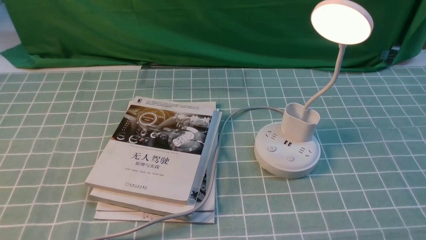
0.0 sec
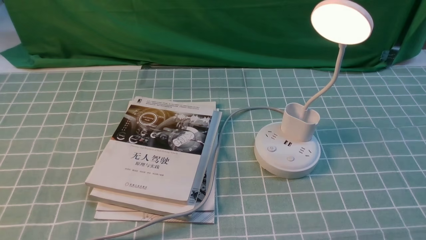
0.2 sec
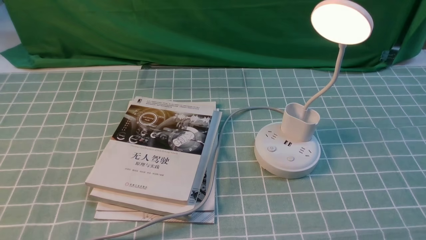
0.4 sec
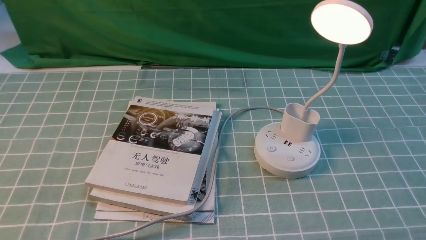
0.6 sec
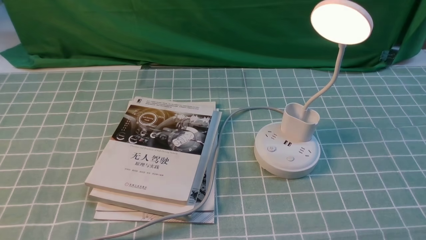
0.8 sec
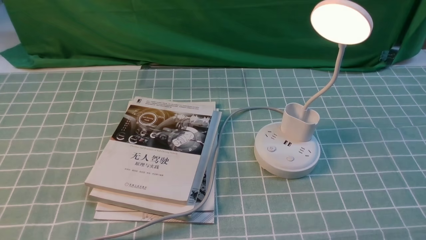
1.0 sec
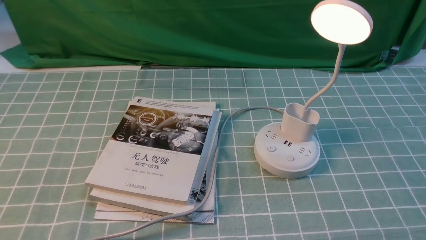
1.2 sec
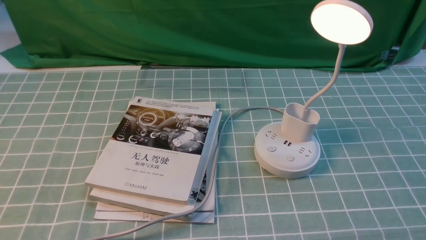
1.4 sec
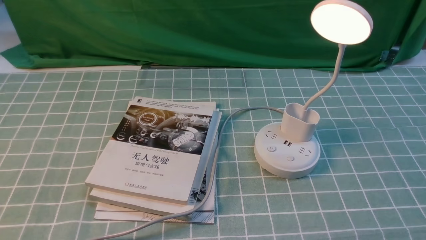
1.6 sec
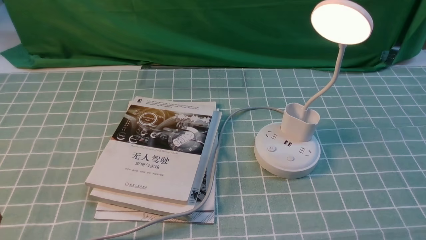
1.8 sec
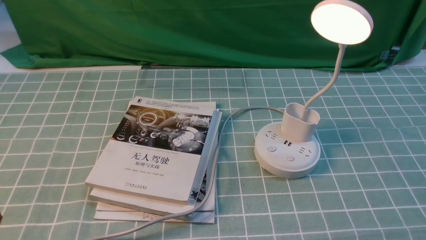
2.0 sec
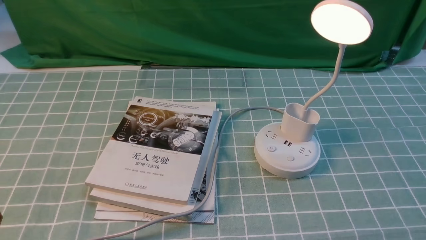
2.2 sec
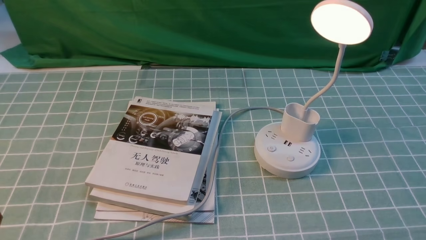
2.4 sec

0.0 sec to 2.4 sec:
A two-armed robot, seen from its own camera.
0.0 sec to 2.4 sec: Both grippers stay about where they are.

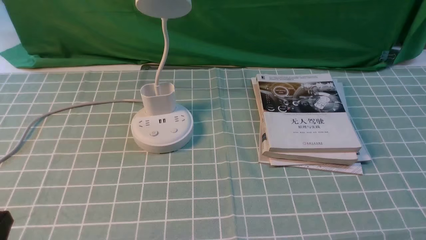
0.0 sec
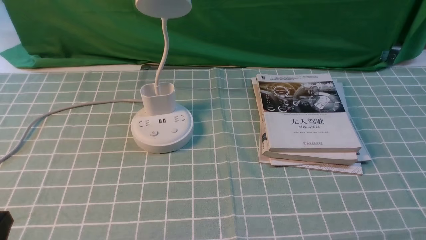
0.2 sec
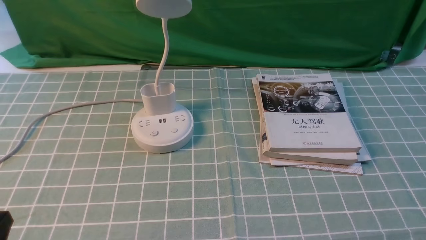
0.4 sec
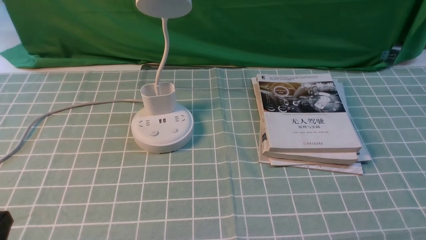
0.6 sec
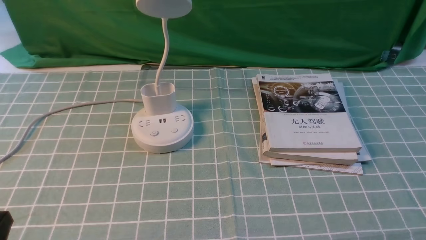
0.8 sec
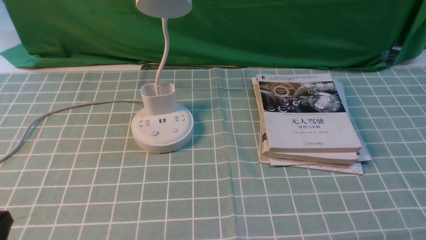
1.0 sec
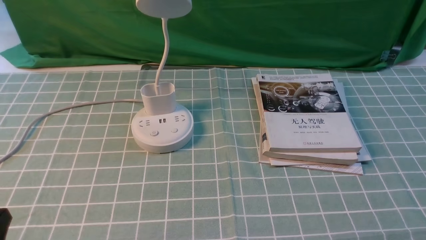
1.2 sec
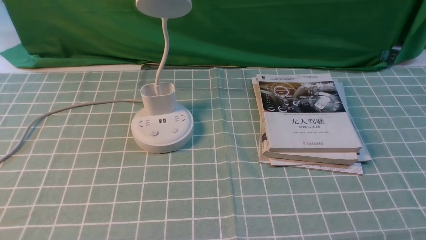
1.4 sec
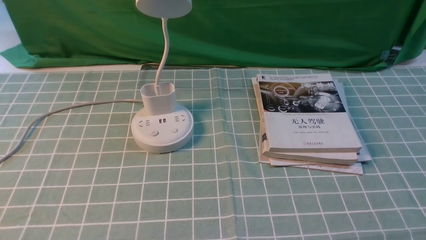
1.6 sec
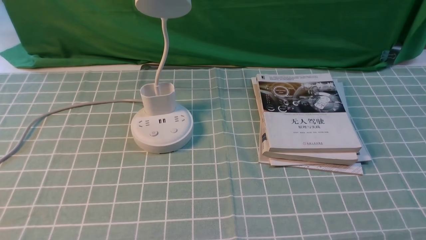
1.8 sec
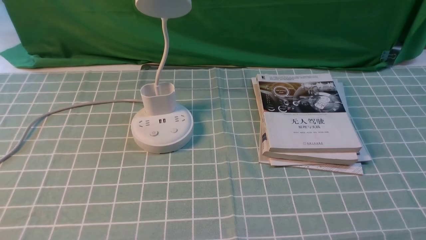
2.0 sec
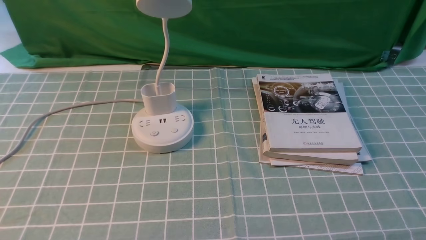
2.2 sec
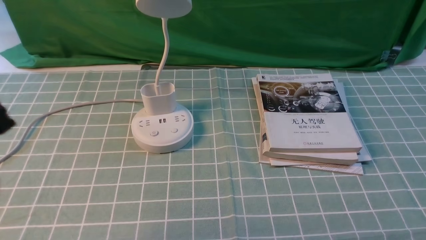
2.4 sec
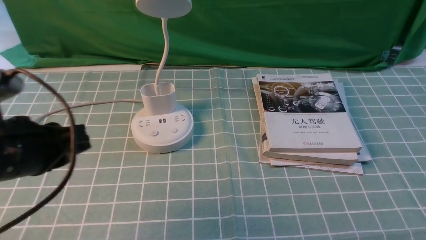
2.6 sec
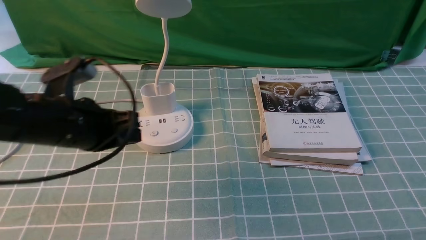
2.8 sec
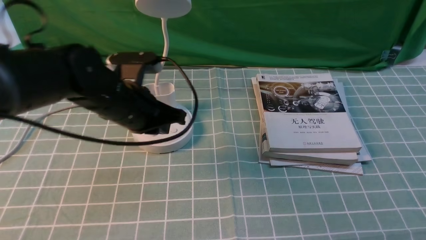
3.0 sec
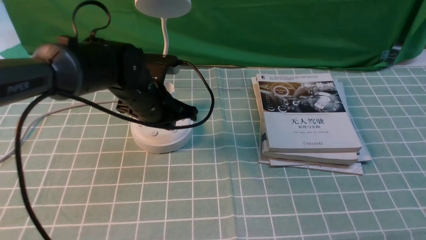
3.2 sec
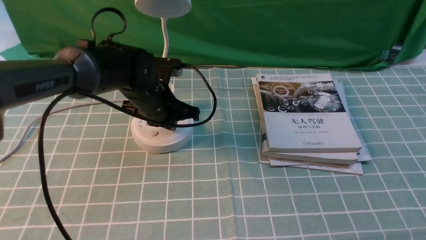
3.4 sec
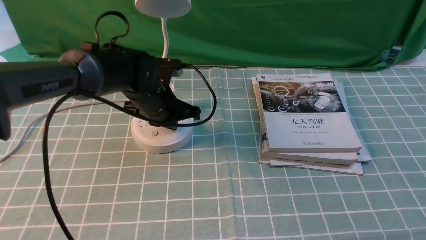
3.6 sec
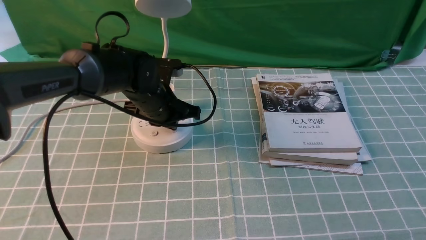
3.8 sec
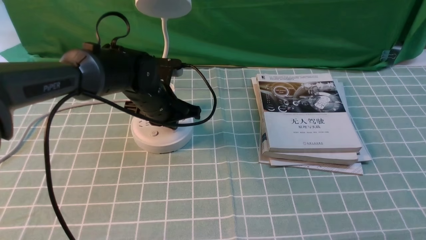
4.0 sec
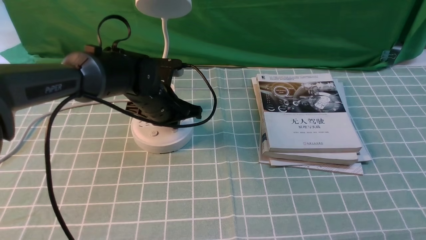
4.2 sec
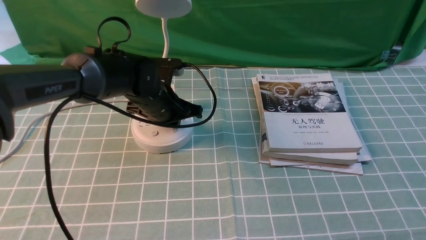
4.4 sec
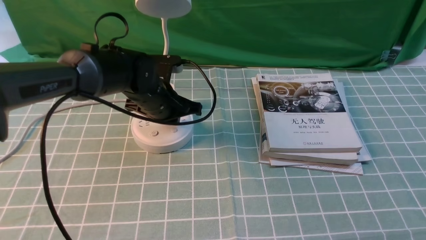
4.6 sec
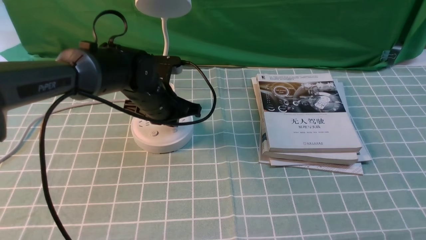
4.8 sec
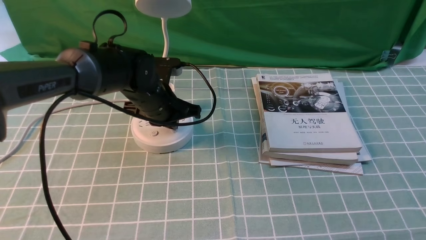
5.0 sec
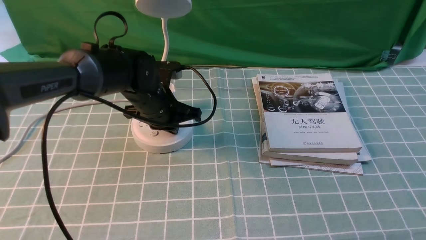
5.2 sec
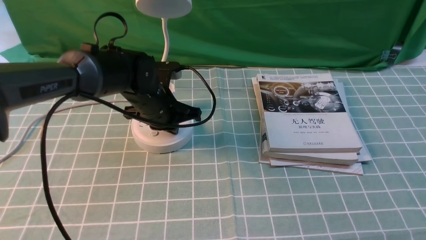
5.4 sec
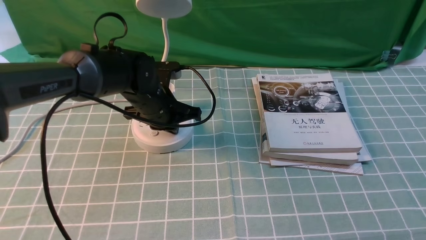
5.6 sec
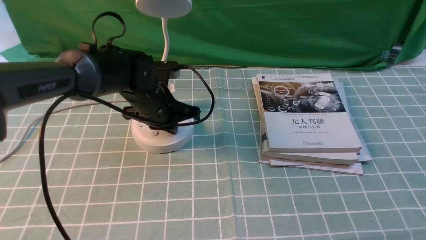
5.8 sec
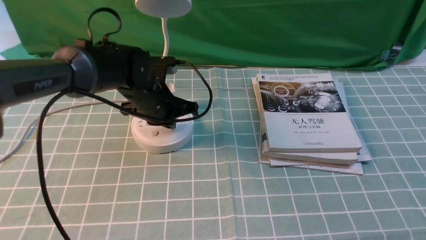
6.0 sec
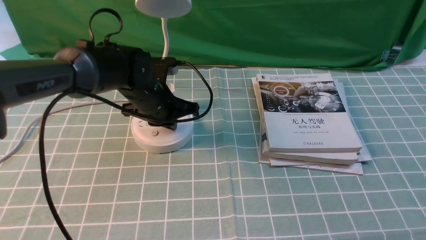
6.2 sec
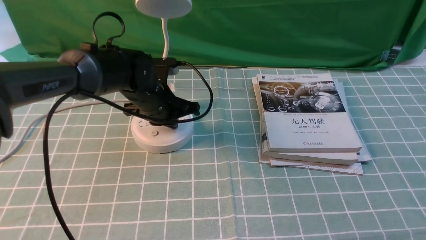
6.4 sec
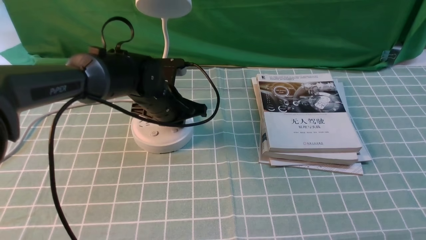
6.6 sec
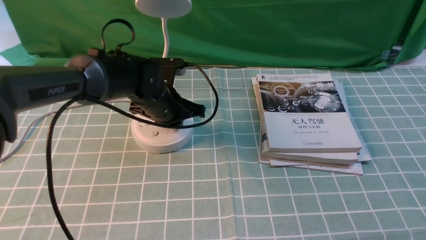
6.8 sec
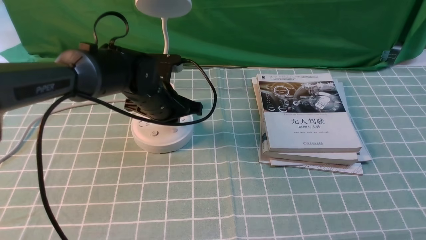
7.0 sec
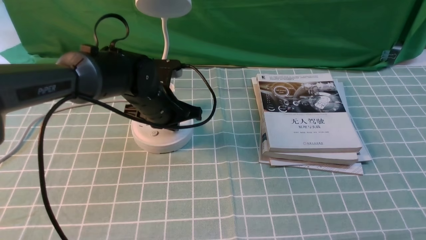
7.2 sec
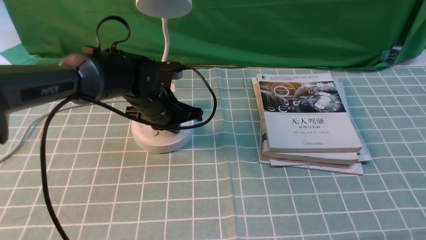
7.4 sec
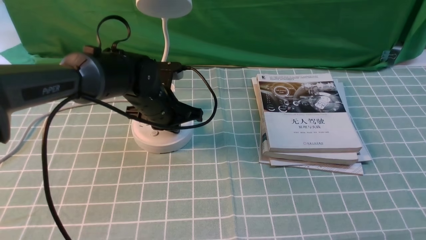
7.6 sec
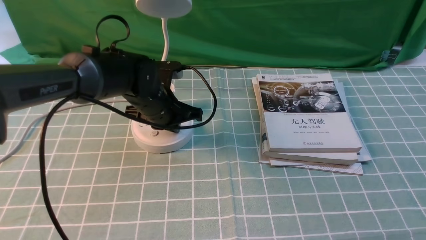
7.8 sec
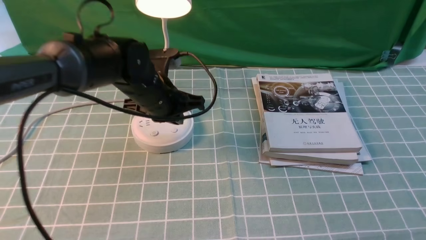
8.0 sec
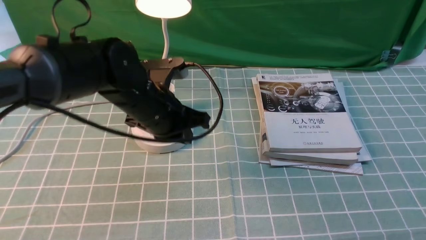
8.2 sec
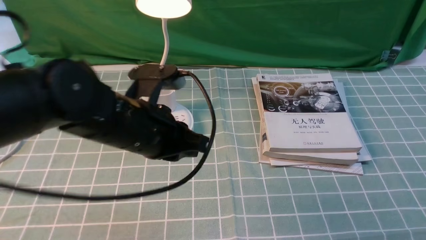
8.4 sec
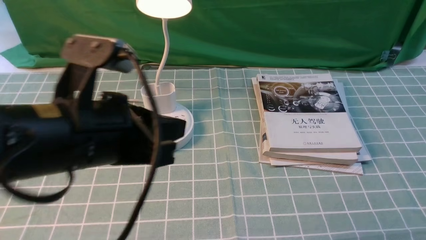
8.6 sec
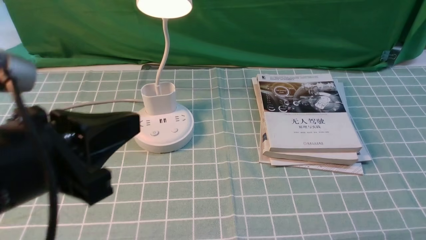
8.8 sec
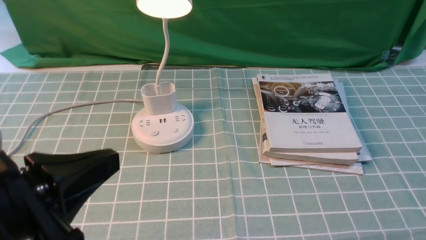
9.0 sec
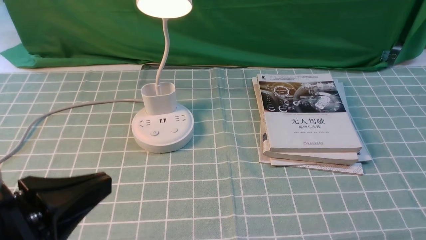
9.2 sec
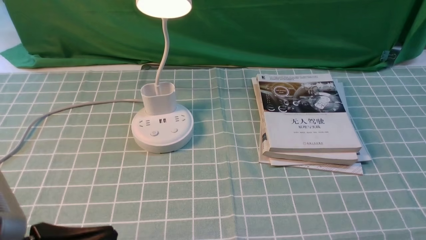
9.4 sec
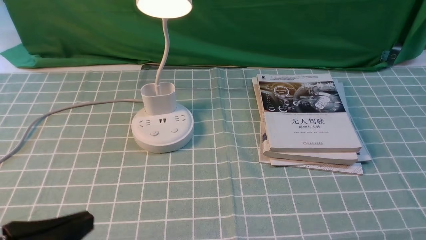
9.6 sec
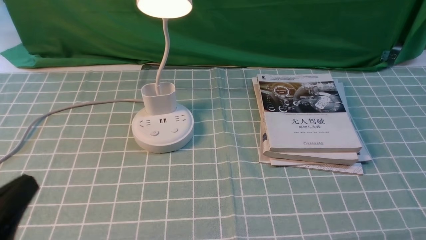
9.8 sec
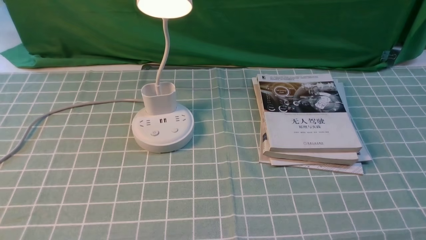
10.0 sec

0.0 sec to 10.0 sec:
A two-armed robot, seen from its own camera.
Step, 0.0 sec to 8.0 sec: use the left arm to press the button switch on the lamp holder.
1.4 sec to 2.8 sec: The left gripper is displaced forward by some 20 cm.
2.8 sec to 4.2 sec: The left gripper heads forward, to the right and downward, covering roughly 15 cm.
4.2 sec to 5.8 sec: Neither gripper changes place.
5.8 sec to 7.2 sec: The grippers stay close to where they were, moving slightly.
7.2 sec to 8.6 sec: The left gripper is displaced backward and upward by roughly 25 cm.
8.6 sec to 10.0 sec: The left gripper heads to the left, backward and downward, covering approximately 20 cm.

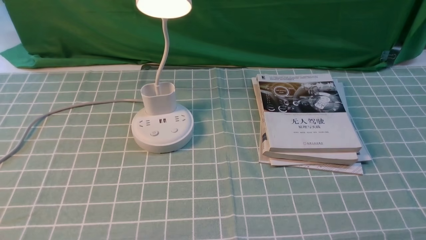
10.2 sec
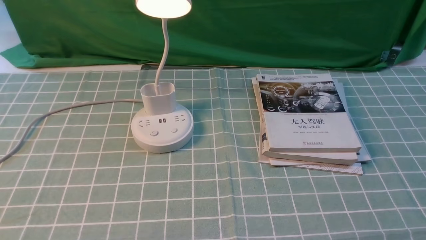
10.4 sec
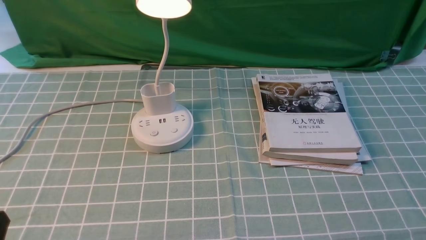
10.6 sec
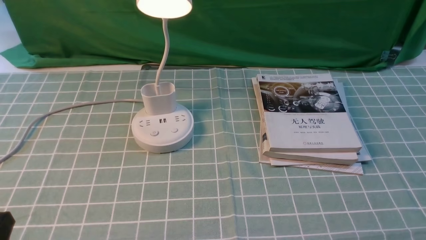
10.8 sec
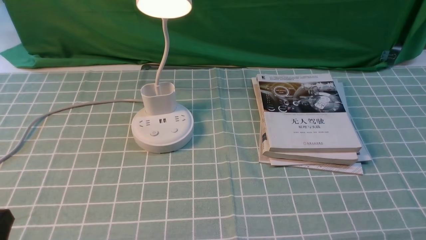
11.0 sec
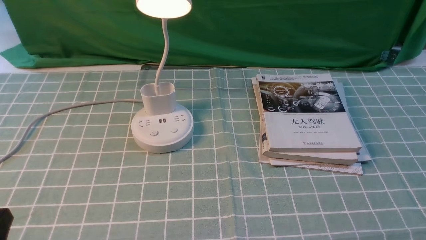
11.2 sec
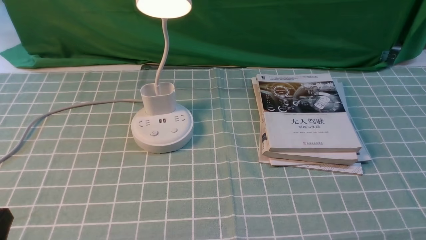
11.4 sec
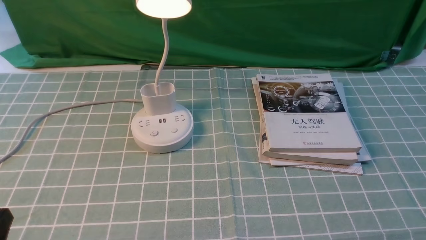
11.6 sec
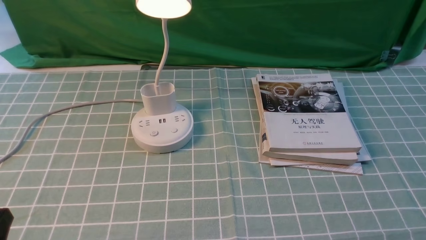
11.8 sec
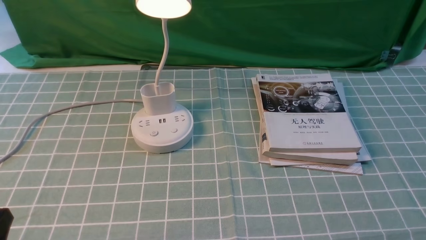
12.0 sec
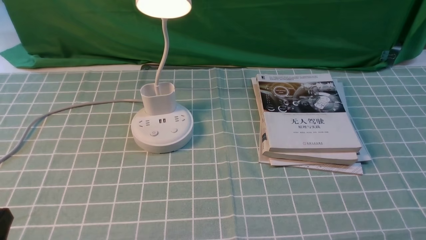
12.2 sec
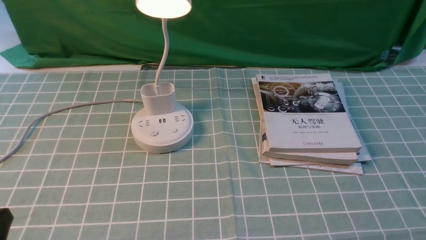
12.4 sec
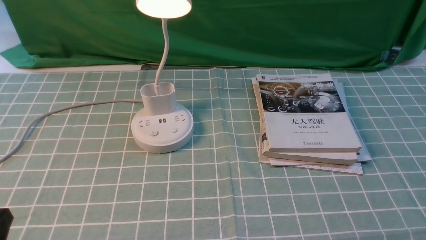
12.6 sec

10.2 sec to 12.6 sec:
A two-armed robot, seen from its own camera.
11.4 sec to 12.6 sec: Neither gripper changes place.

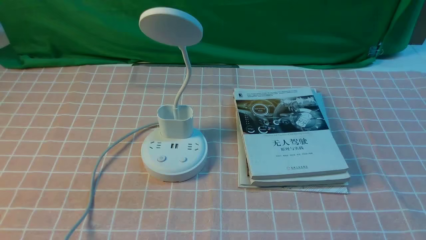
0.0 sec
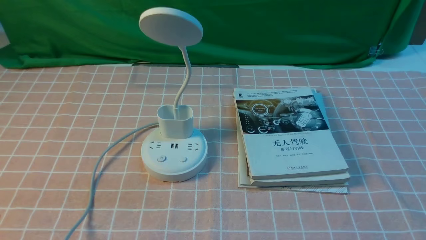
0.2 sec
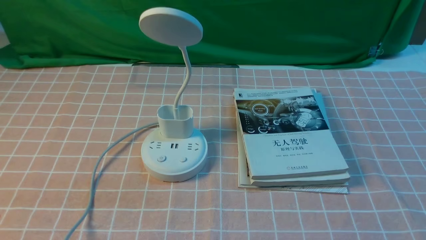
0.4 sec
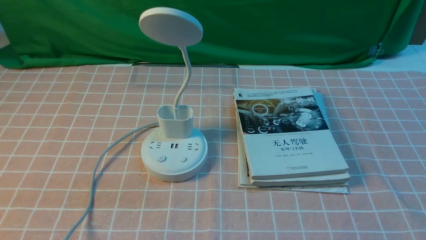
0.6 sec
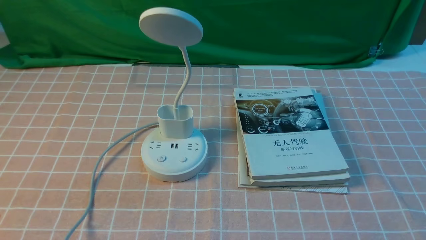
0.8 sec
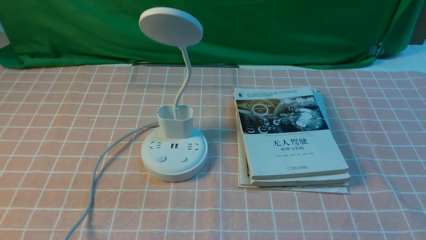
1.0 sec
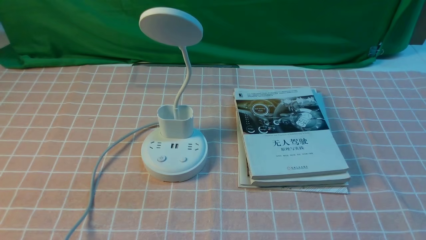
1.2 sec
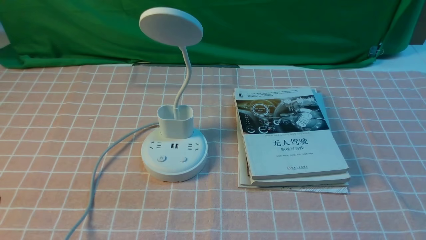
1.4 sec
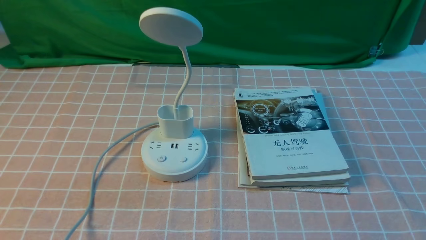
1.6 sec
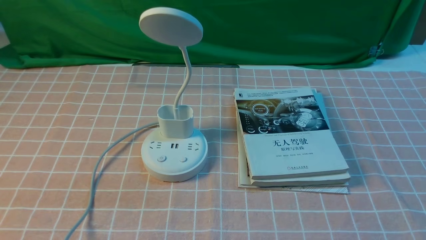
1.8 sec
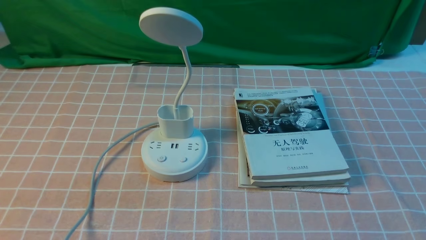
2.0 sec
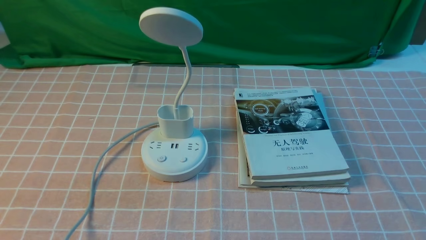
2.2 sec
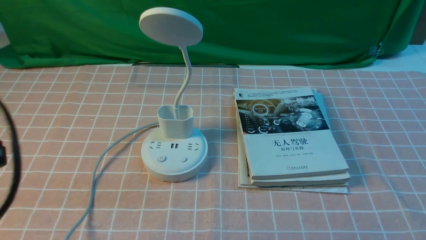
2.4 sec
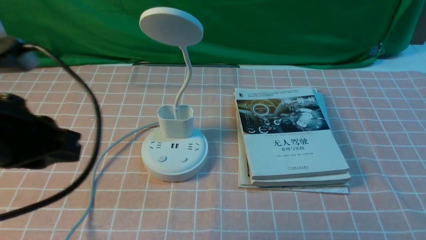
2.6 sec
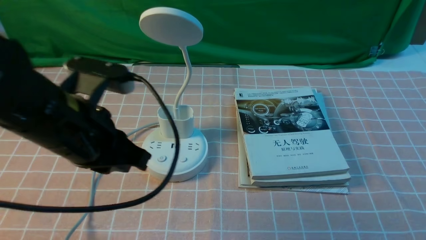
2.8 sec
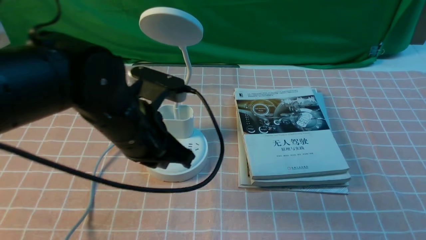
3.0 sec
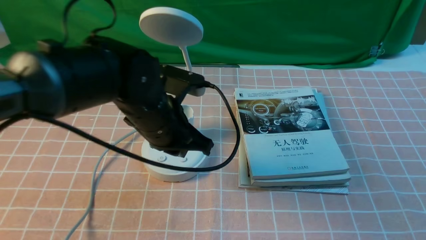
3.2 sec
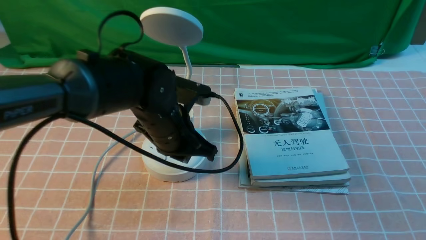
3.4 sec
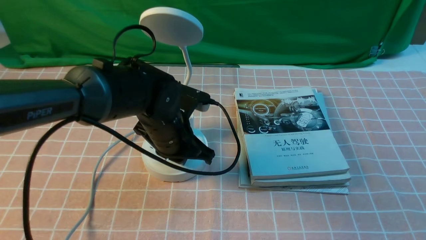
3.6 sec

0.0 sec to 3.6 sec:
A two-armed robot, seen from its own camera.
1.8 sec to 3.6 sec: The left gripper heads forward and to the right, covering some 35 cm.
